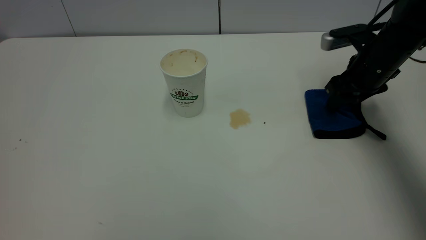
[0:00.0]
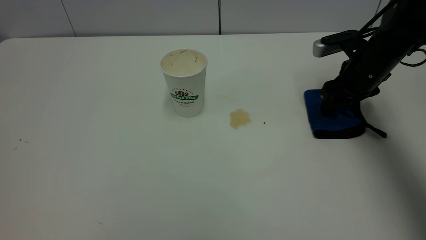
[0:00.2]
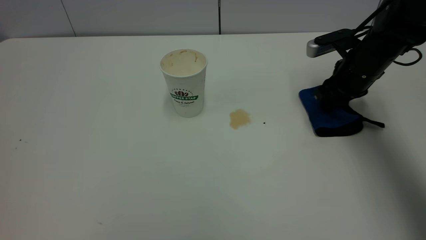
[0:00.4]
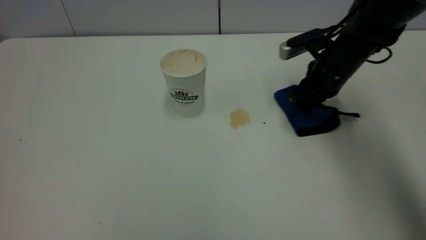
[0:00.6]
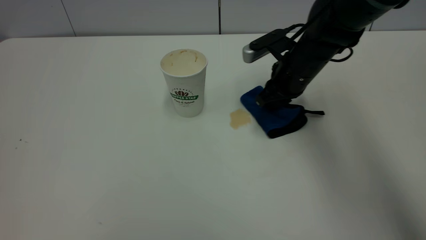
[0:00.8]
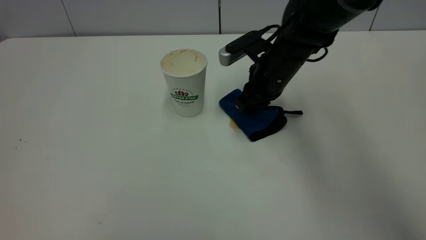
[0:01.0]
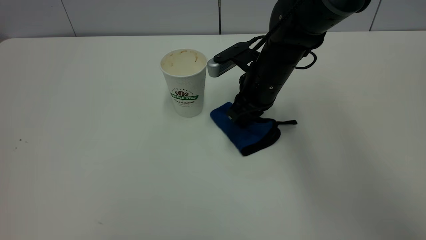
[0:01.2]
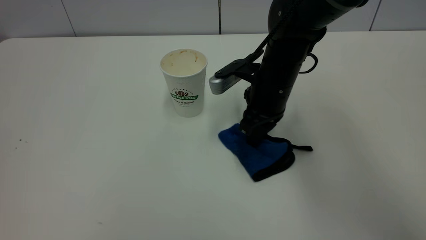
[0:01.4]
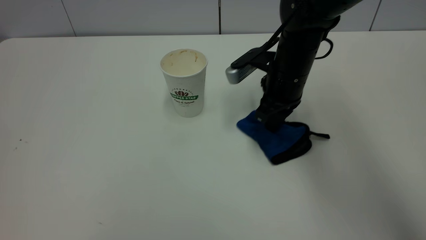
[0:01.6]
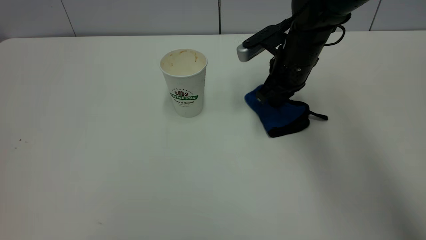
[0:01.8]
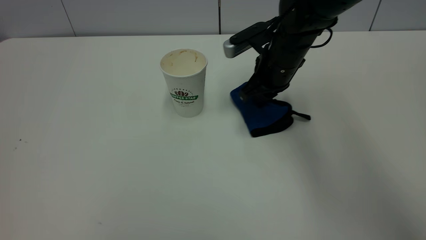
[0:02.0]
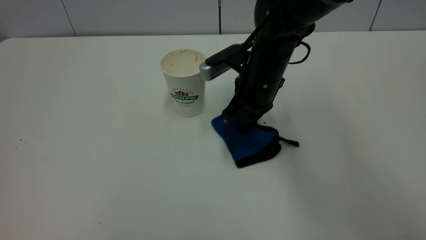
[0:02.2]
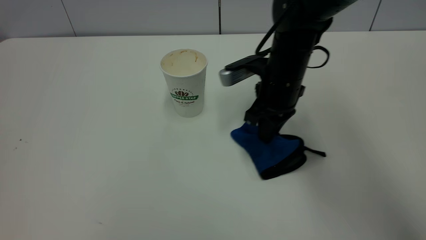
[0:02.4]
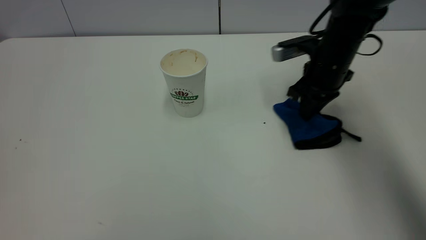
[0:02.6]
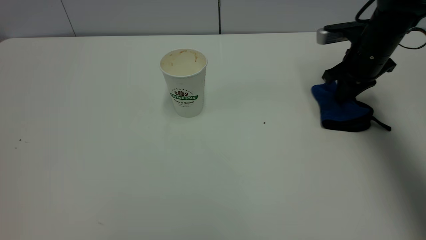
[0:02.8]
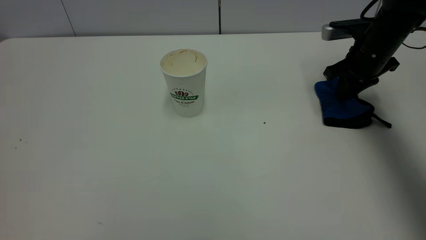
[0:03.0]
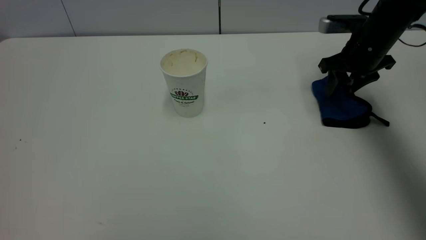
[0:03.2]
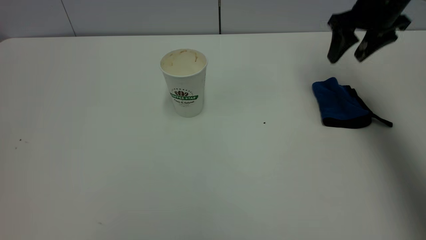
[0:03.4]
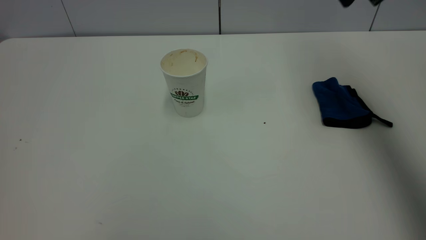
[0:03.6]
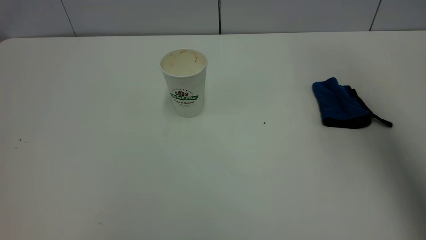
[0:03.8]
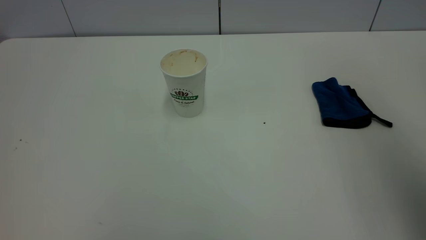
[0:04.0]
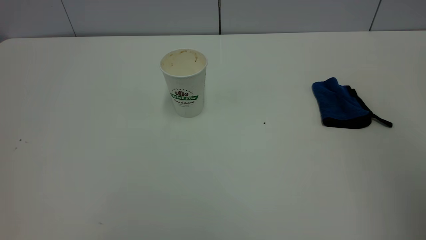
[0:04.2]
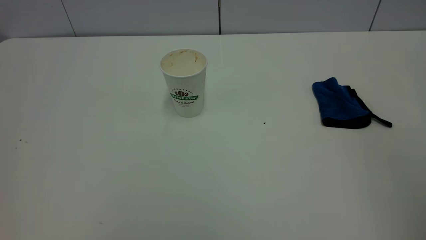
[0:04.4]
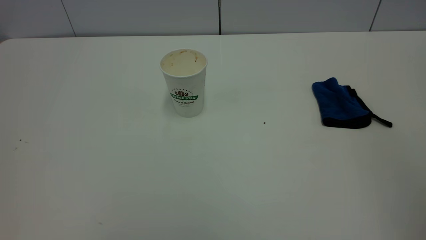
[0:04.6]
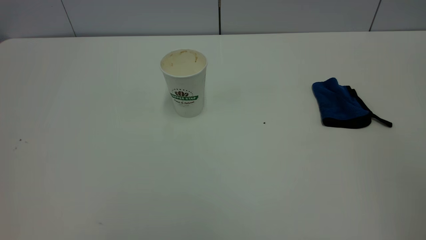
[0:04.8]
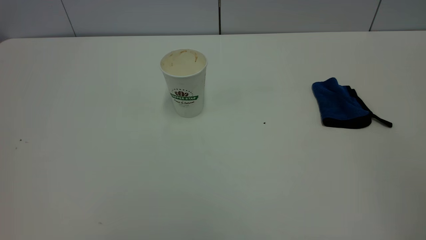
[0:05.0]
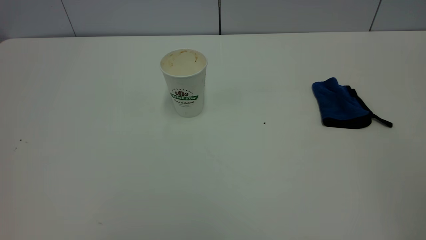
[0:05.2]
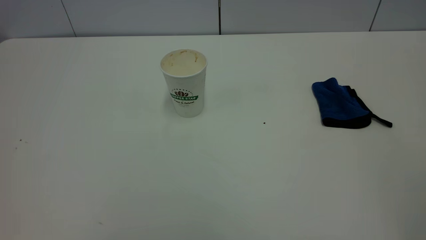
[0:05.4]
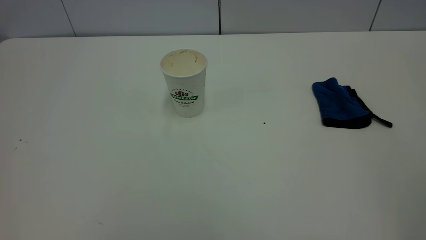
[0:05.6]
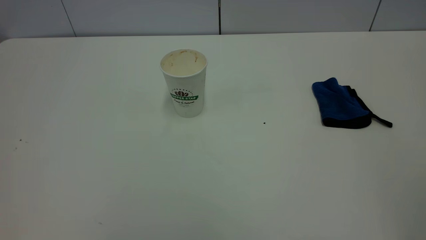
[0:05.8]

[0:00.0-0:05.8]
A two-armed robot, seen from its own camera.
Task of the whole recording: the left gripper pick up the fallen cup and place it upright, the right gripper grasp the blue rag and wipe the tea stain on the table, the right gripper put the blue rag back in its original position.
Step, 0:00.0 to 0:03.4: Wipe the stains off the table with a rag.
0:00.0 to 0:01.4: The right gripper is displaced to the left by approximately 15 cm, and closes.
0:01.4 to 0:02.8: The right gripper heads to the right, covering approximately 20 cm.
0:02.8 to 0:04.4: The right gripper goes roughly 50 cm backward and upward, and opens up.
